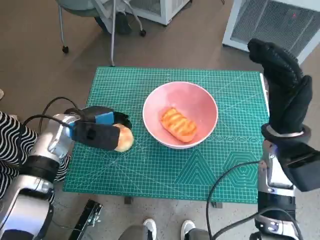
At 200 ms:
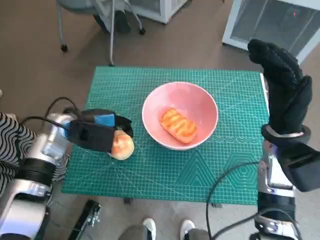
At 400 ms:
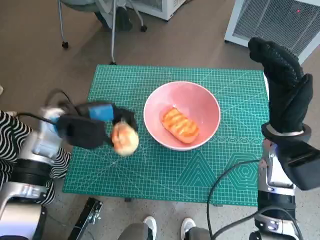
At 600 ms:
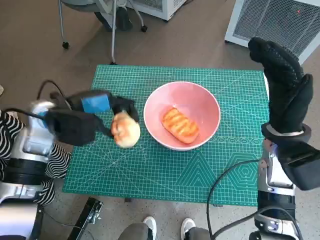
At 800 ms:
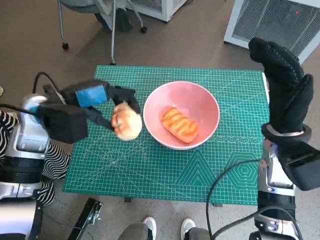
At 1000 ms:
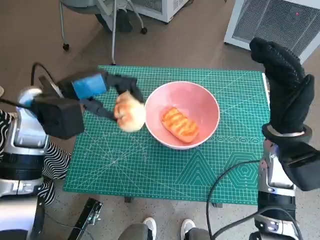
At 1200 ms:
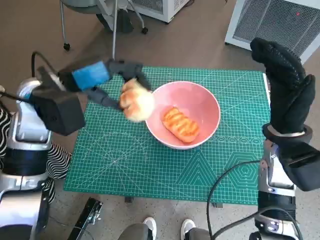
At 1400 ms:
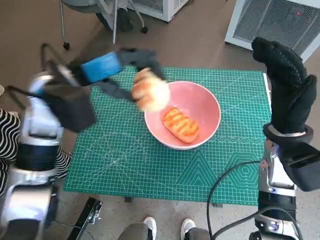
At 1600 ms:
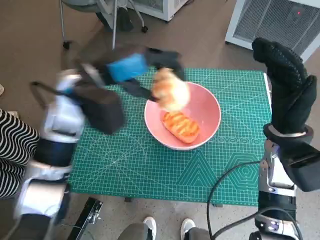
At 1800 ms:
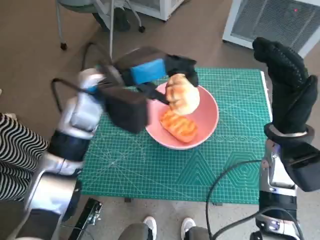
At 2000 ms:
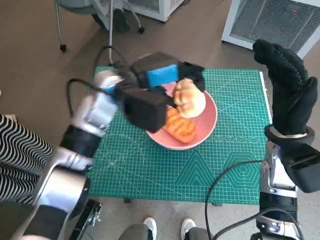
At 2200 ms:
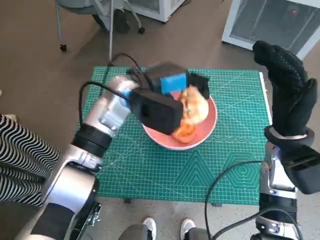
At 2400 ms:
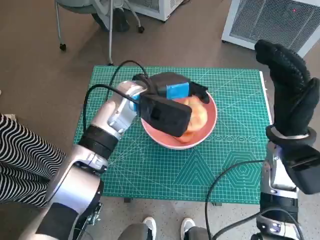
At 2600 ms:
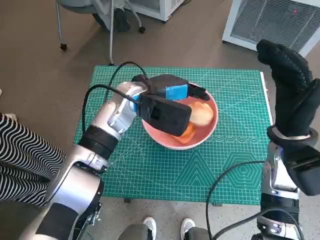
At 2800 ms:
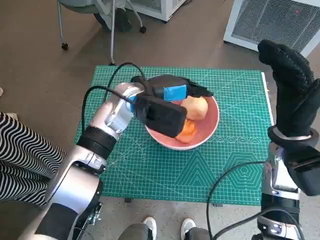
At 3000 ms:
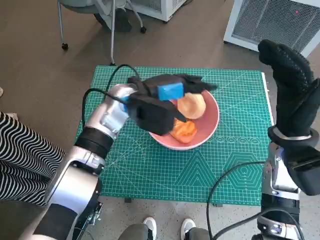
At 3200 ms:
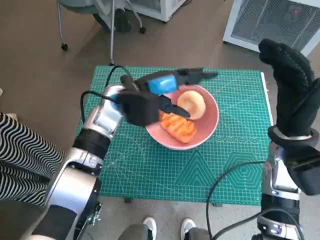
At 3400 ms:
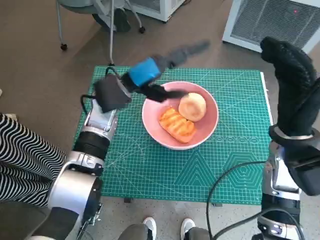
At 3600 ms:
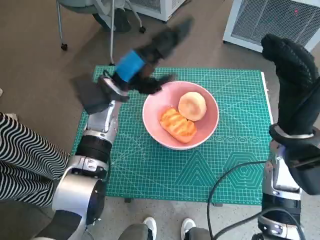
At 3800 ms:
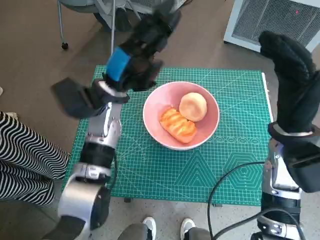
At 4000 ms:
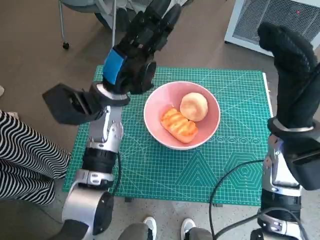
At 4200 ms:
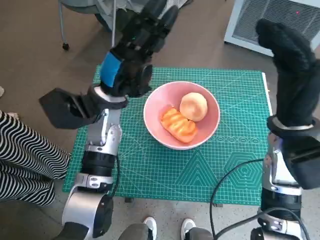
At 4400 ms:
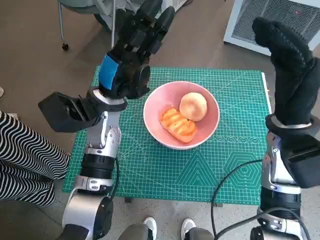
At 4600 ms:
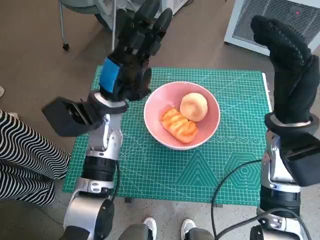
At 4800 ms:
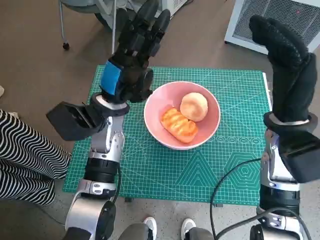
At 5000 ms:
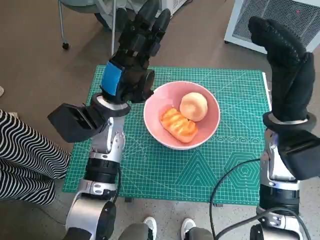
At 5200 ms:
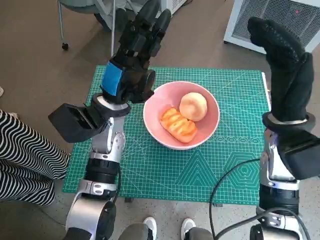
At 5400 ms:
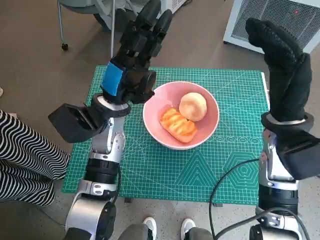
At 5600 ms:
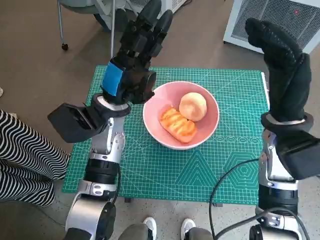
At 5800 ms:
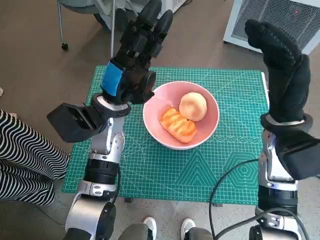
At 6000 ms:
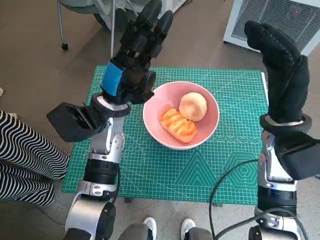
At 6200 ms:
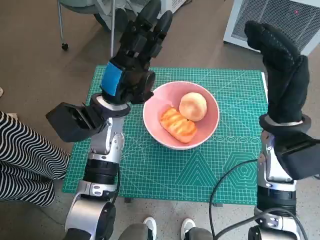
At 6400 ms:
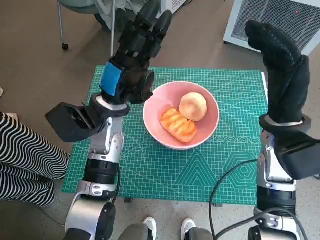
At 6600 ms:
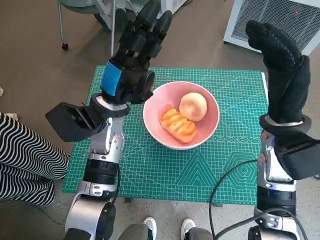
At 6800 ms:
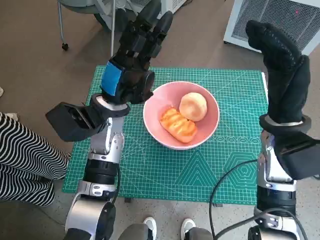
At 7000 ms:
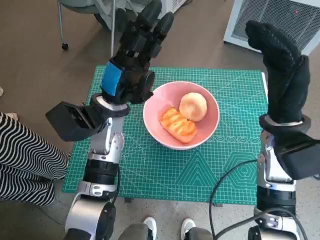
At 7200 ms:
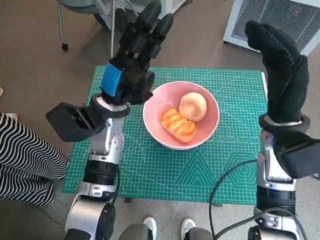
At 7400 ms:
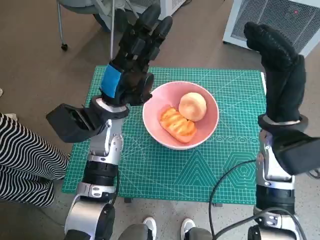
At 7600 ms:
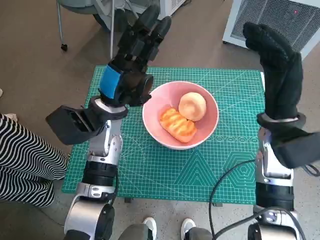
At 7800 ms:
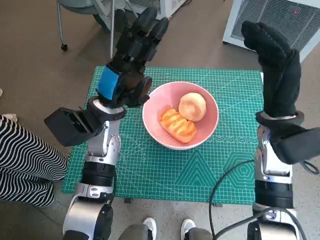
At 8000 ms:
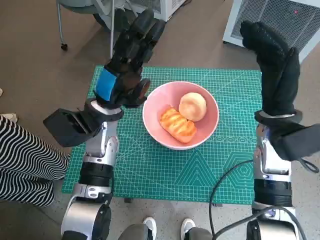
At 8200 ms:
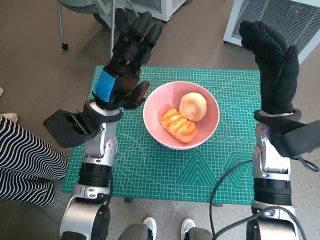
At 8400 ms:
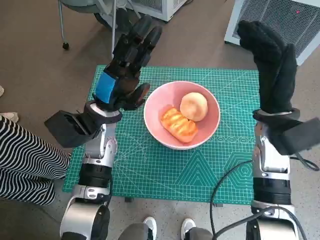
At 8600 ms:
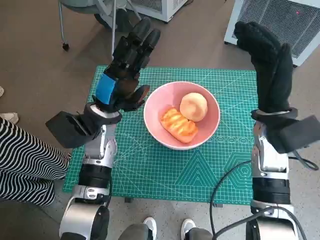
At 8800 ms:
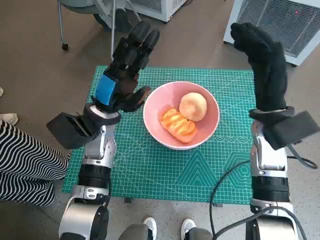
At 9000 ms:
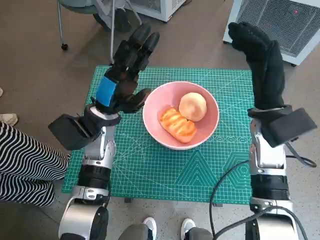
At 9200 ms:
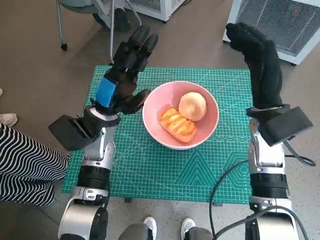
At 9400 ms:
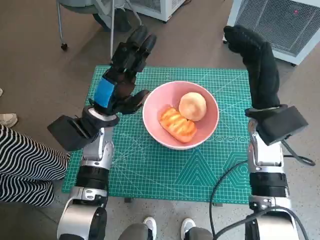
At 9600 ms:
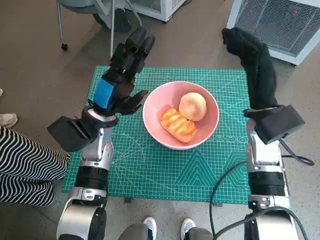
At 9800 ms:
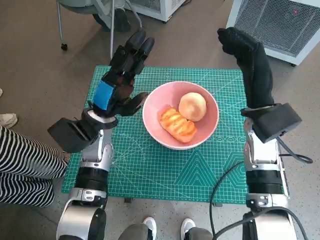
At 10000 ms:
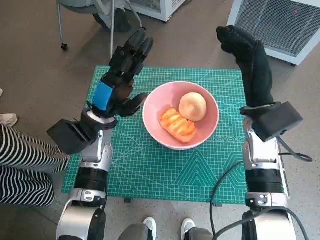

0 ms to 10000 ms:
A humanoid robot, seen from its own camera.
Task of the whole recording: Push the bowl into the center of the table and put the bread into the bowl.
Step, 200 ms to 3400 ms: Place the round bread in pink bowl with left hand.
0 ms to 1400 ms: The left hand travels upward by roughly 15 cm.
1400 ms to 2800 ms: The left hand moves to the right and downward, about 15 cm.
2800 ms to 4200 ms: The left hand travels to the left by roughly 5 cm.
5800 ms to 7200 ms: Both hands stay put.

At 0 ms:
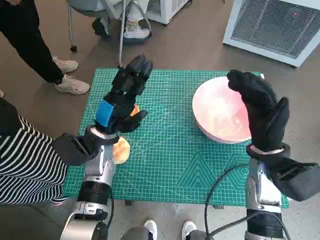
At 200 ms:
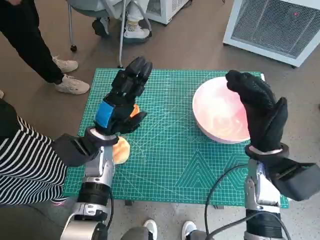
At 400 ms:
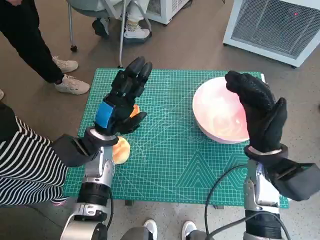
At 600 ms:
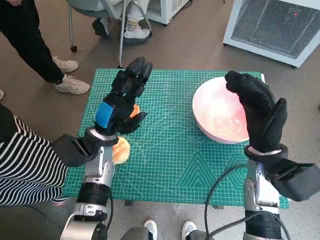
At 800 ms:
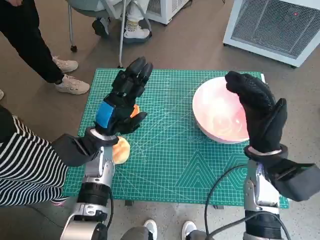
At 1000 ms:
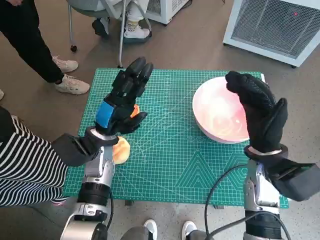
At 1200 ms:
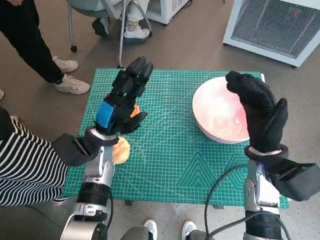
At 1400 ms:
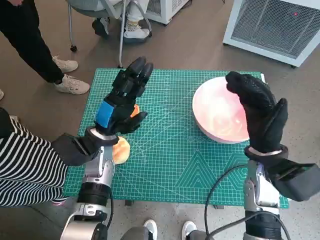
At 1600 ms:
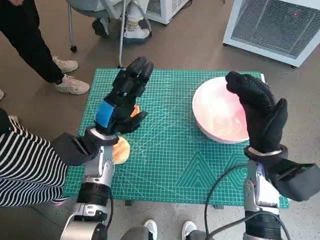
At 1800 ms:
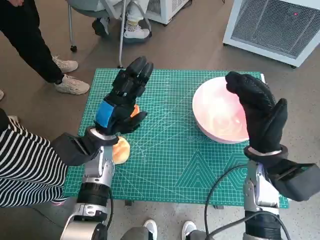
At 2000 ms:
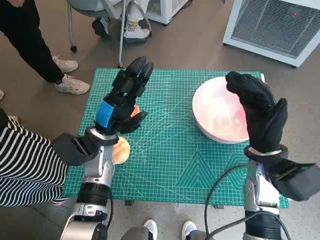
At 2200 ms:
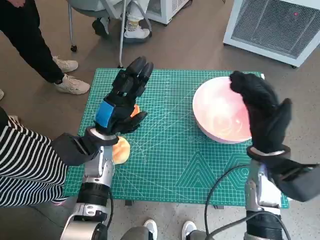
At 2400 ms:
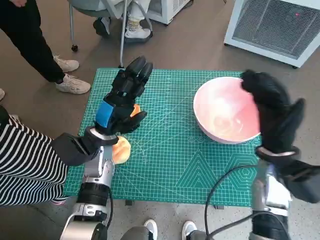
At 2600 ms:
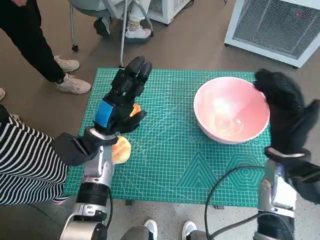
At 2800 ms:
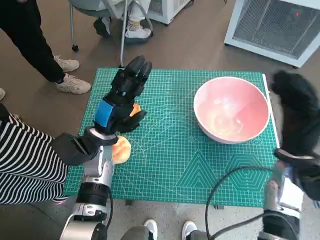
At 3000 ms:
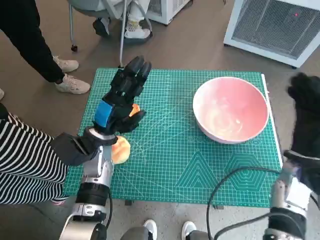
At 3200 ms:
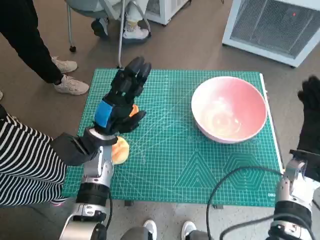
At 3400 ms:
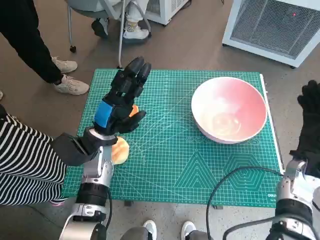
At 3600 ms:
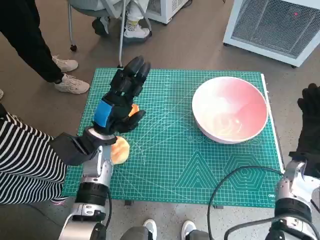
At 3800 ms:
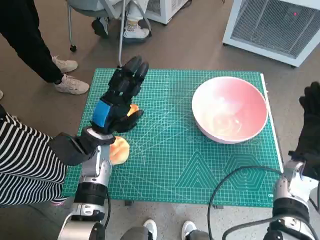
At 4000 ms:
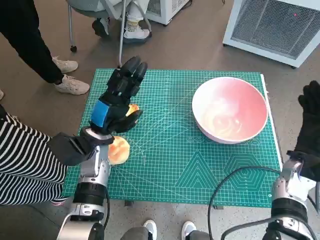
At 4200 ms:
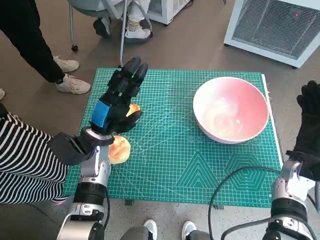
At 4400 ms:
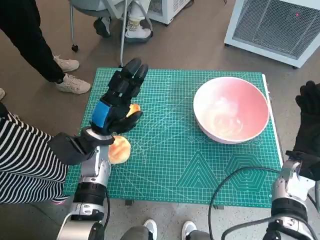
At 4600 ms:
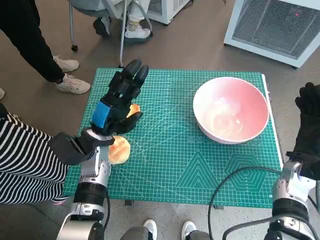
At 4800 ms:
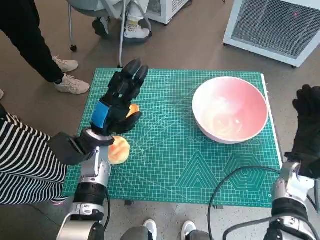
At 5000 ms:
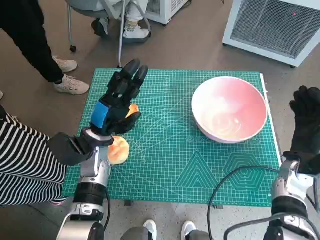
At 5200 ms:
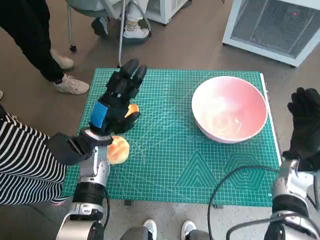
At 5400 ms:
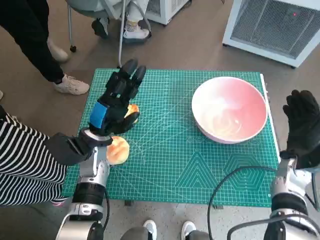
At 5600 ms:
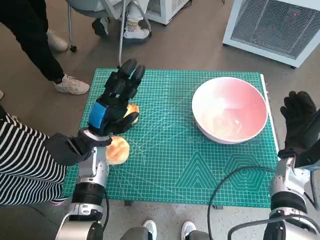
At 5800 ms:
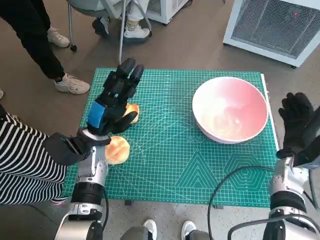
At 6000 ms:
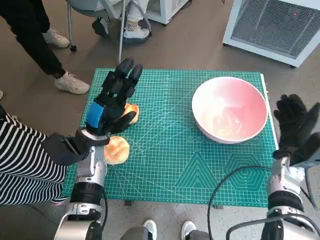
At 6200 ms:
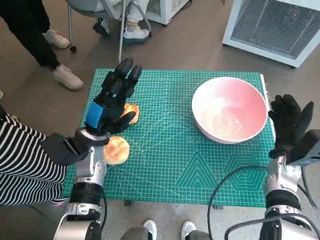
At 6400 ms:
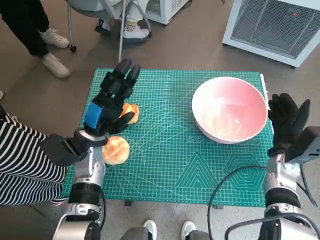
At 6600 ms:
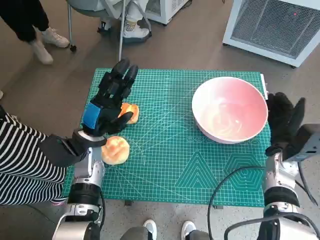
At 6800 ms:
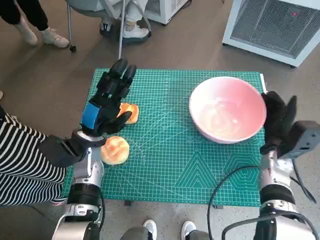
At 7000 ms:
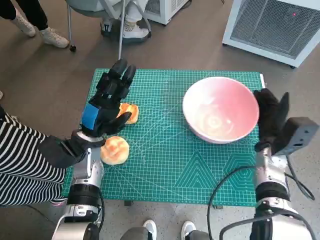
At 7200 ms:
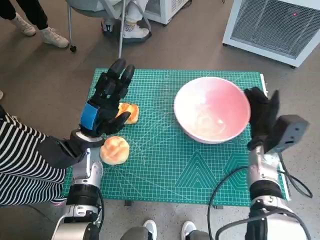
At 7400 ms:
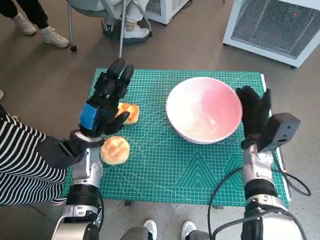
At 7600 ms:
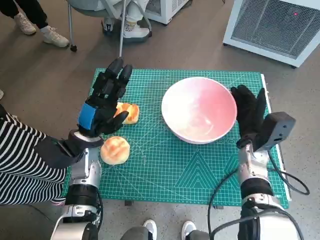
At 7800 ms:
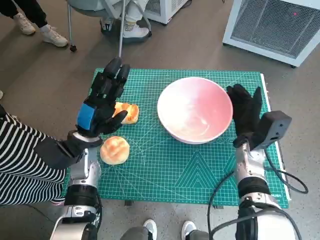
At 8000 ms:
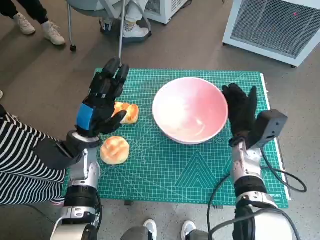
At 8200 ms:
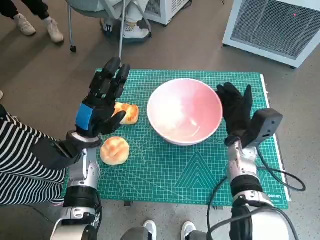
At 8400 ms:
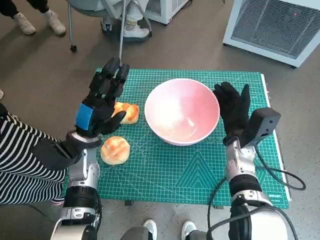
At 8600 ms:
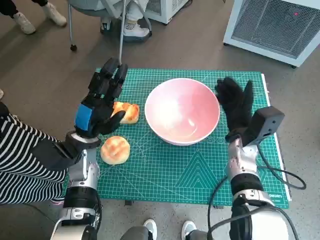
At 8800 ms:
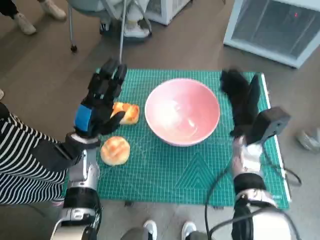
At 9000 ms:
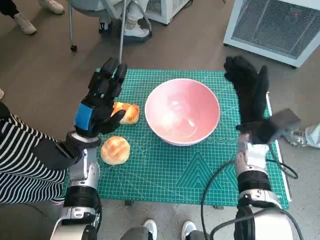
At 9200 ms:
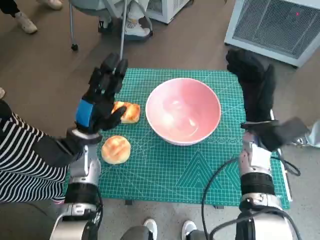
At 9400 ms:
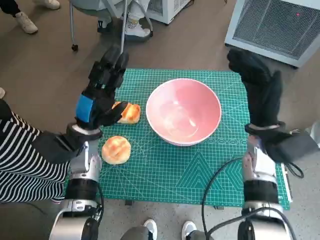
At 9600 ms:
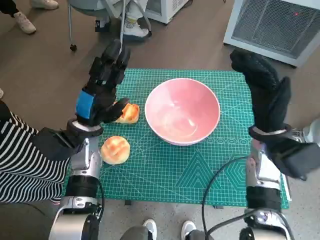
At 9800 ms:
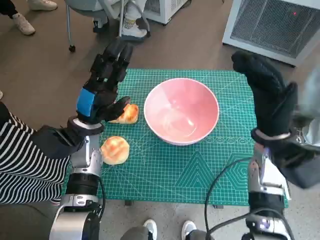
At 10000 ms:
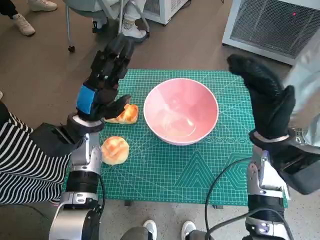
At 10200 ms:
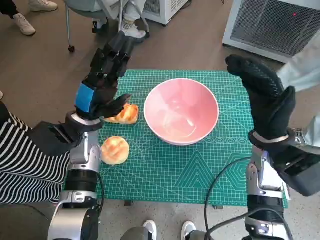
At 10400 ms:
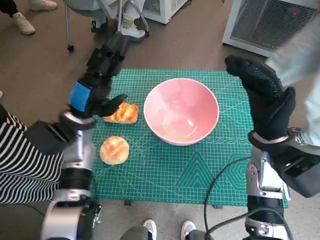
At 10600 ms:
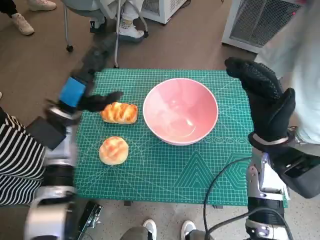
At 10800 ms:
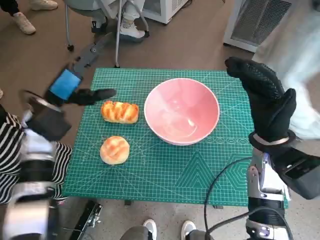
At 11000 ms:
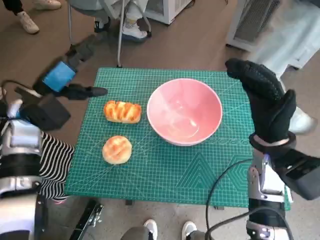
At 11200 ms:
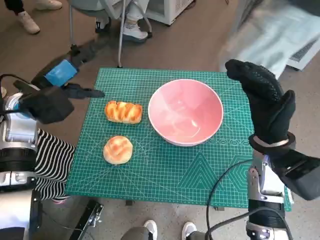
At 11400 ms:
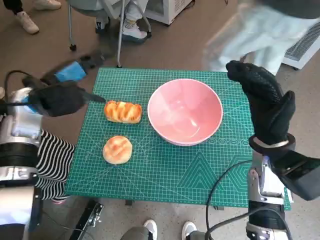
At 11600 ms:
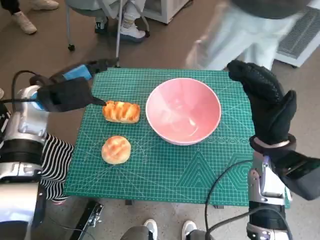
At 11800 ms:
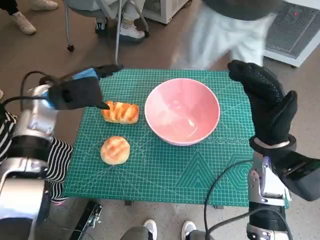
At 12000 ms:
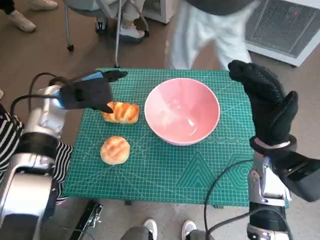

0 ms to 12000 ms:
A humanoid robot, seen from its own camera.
Task of the whole recording: Push the bowl into the center of the table and put the bread into the bowl.
Step, 0 ms to 8800 ms: Move the pink bowl to the center of table with right hand.
1600 ms to 3000 ms: The right hand is displaced to the right by some 5 cm.
3000 ms to 4400 ms: The hands move only a little.
6000 ms to 7600 ms: The right hand is displaced to the left by about 5 cm.
9000 ms to 10400 ms: The right hand shifts approximately 5 cm upward.
10400 ms to 12000 ms: The left hand goes about 5 cm upward.
